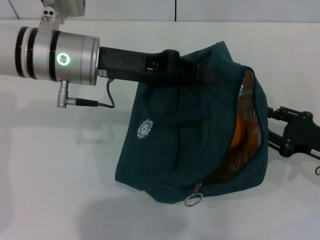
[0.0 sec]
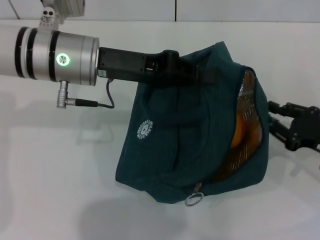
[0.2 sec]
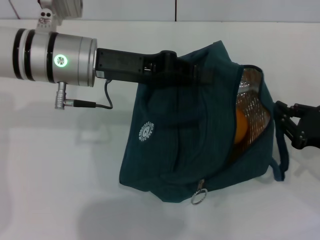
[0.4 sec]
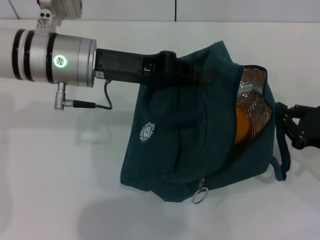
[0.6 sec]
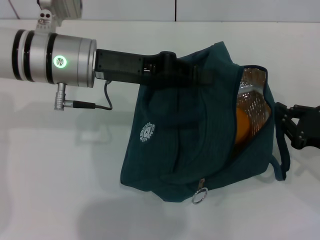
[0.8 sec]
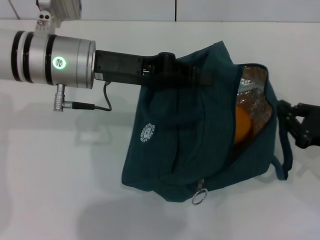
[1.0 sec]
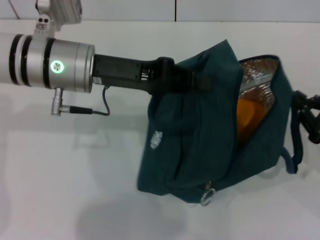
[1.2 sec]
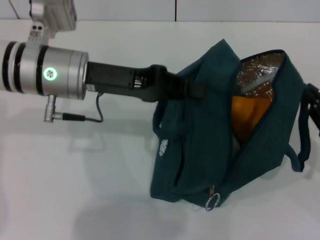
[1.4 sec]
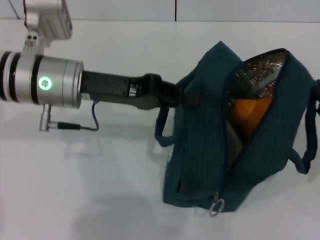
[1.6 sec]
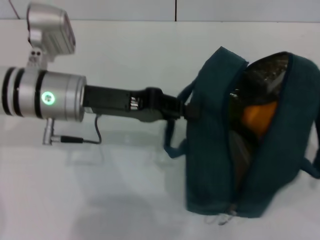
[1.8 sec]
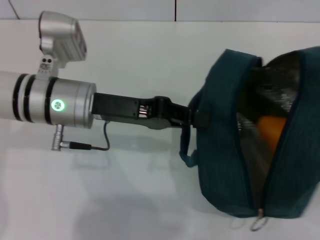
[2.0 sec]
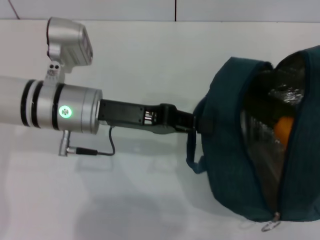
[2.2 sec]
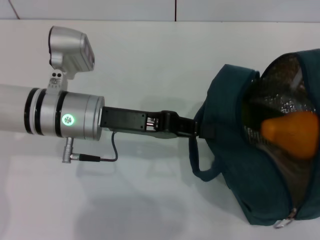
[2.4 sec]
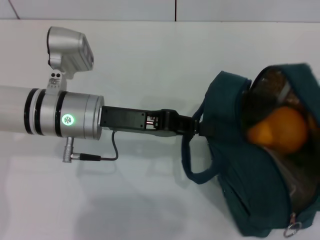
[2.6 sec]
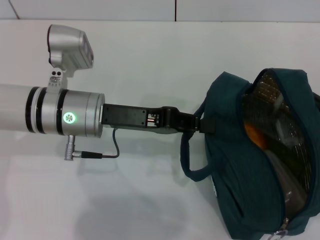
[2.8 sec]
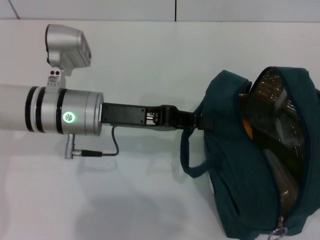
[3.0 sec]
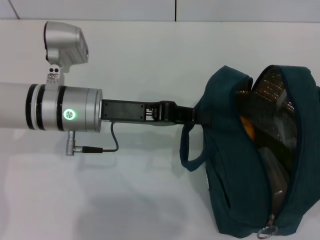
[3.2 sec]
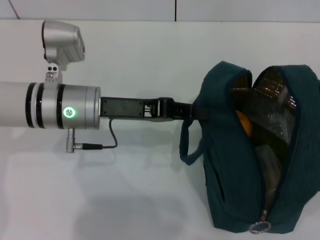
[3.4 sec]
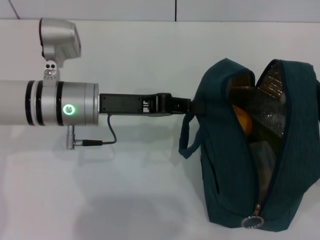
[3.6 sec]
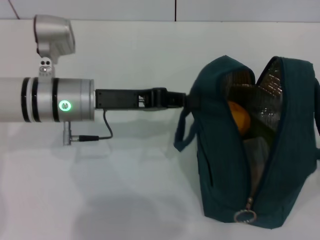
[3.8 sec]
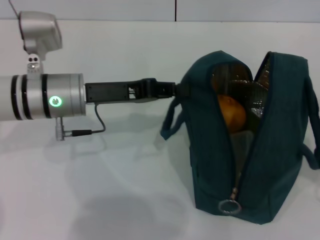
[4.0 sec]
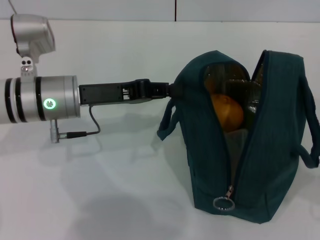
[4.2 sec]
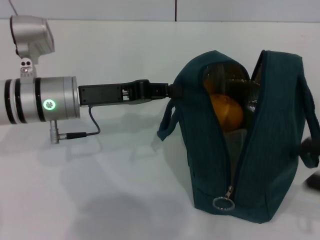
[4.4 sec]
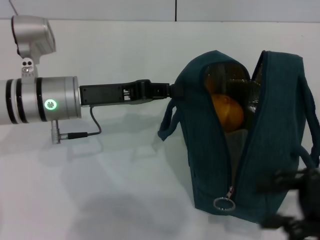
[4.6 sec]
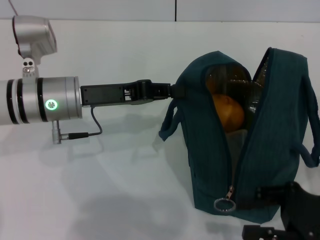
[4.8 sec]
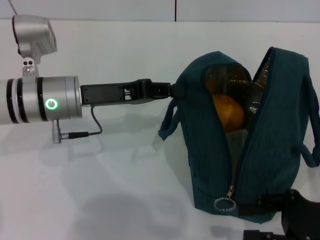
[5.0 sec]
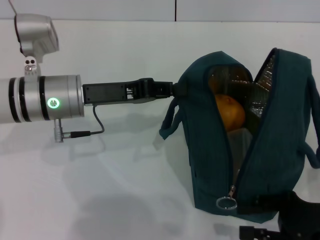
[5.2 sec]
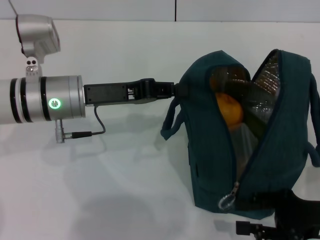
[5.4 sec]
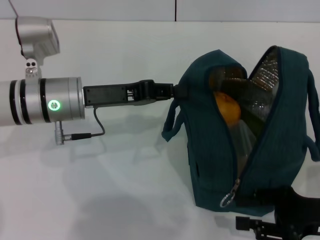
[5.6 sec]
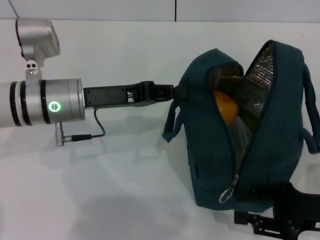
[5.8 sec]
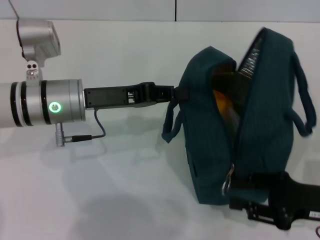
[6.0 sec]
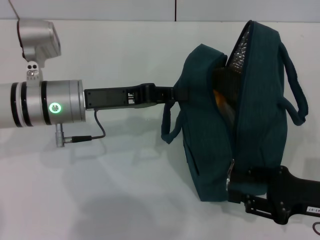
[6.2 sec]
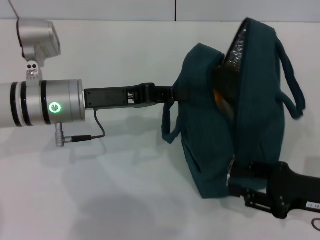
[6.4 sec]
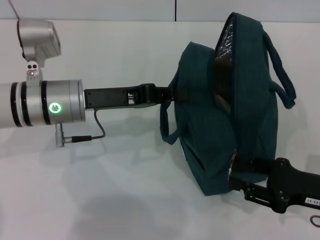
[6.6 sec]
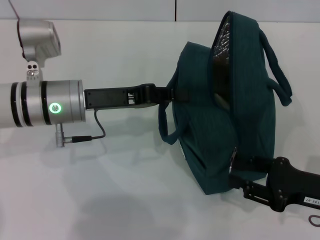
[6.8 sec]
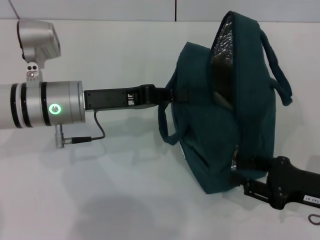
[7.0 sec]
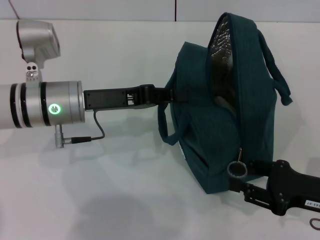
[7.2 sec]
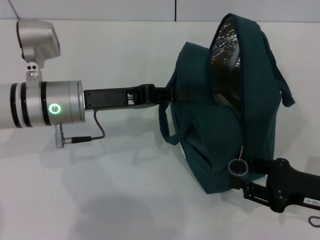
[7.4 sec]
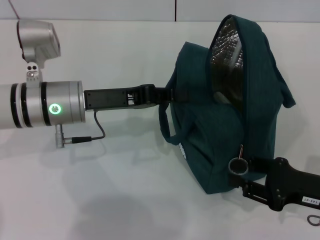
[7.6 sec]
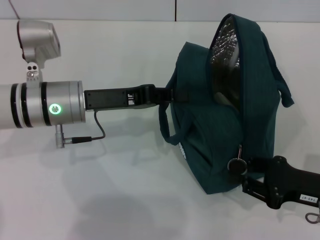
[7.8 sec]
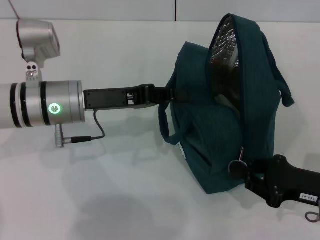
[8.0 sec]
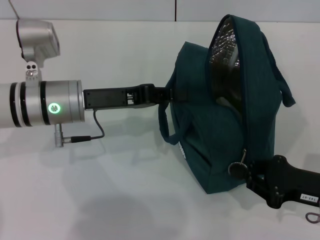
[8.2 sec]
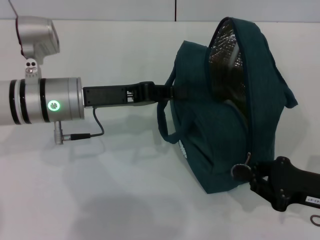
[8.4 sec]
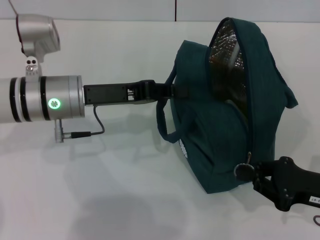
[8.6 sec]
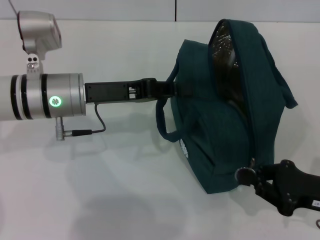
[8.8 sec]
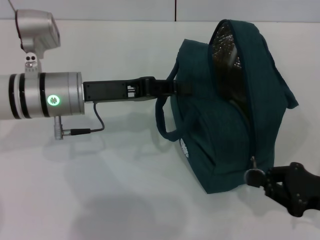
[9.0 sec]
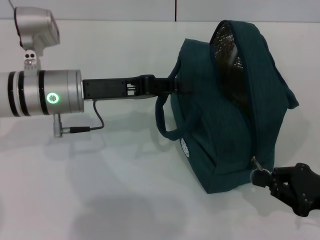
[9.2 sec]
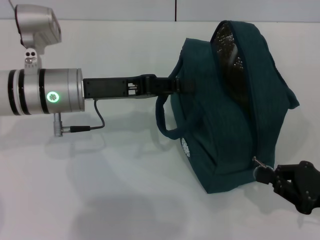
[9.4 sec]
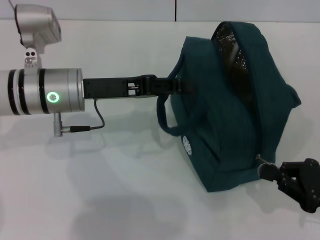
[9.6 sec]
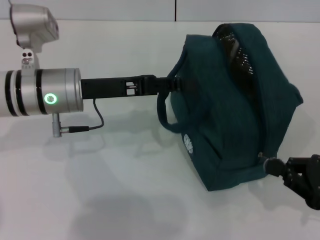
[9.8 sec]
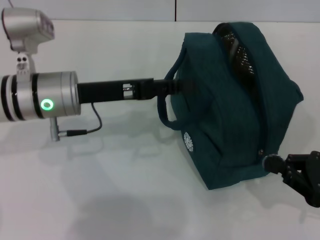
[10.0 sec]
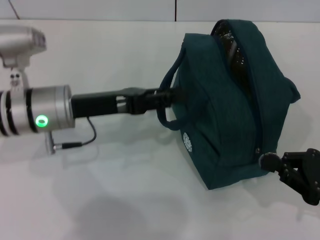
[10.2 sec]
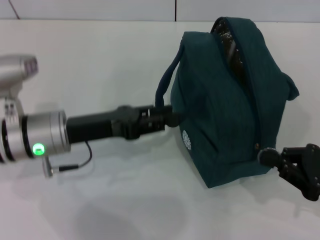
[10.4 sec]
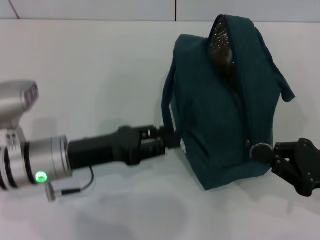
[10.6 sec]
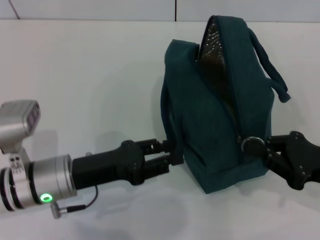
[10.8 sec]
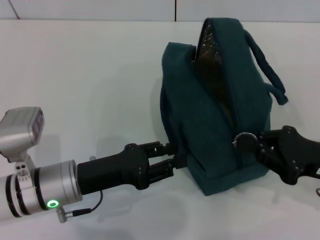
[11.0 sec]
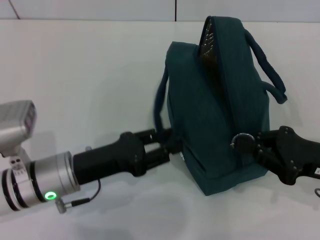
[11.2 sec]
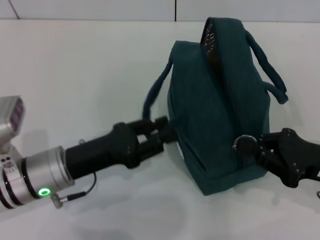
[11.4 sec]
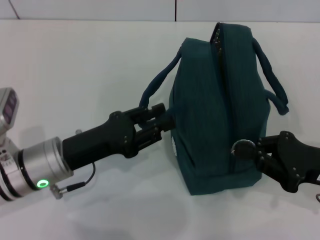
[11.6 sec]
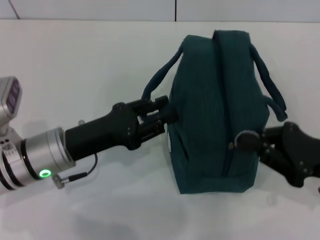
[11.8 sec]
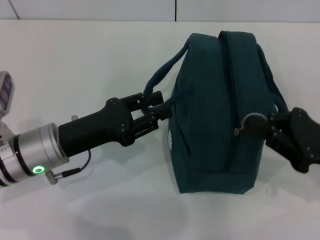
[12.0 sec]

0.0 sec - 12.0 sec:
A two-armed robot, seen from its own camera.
Step, 0.0 sec - 3.8 sec: Hold the lunch bag with your right hand.
0.0 sec - 1.6 sec: The right gripper shifts by about 5 cm, and closes up.
3.0 sec - 4.4 sec: The right gripper changes place by approximately 5 cm, and opens up.
4.4 sec - 6.0 sec: The right gripper shifts roughly 5 cm downward.
6.0 sec - 7.6 sec: The grippers stay close to where they were, moving slightly.
7.6 sec - 9.0 sec: The right gripper closes up.
9.0 sec - 10.4 sec: The left gripper moves some 5 cm, and opens.
10.4 sec - 12.0 sec: The right gripper moves about 5 cm.

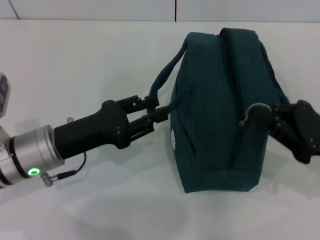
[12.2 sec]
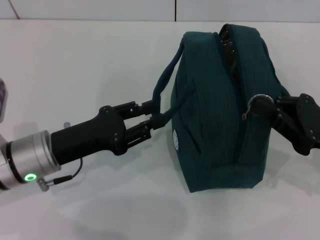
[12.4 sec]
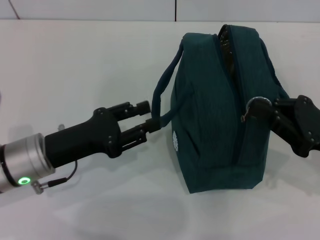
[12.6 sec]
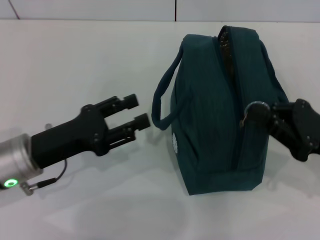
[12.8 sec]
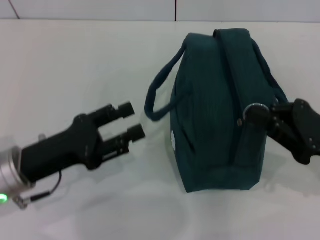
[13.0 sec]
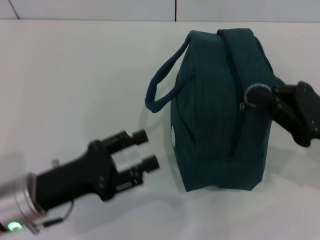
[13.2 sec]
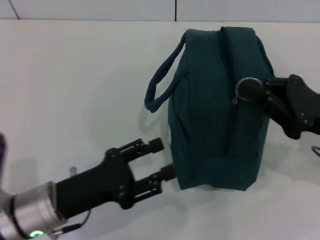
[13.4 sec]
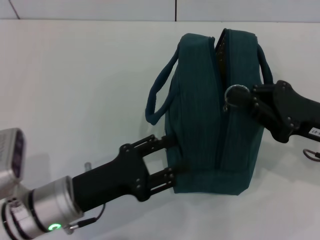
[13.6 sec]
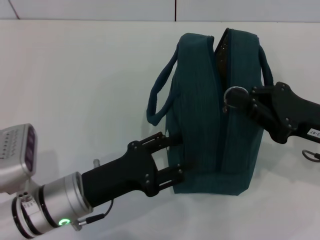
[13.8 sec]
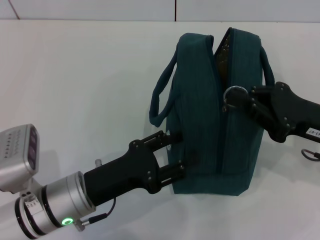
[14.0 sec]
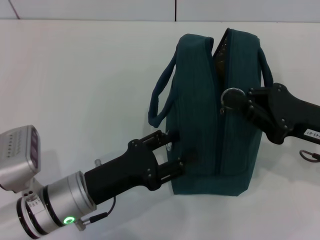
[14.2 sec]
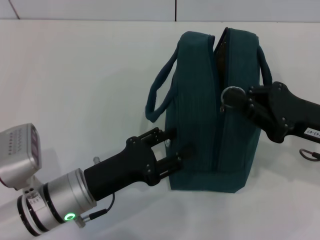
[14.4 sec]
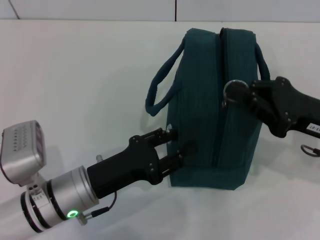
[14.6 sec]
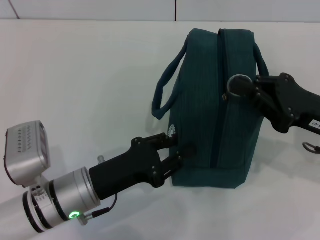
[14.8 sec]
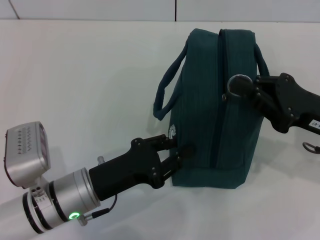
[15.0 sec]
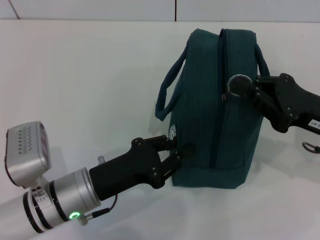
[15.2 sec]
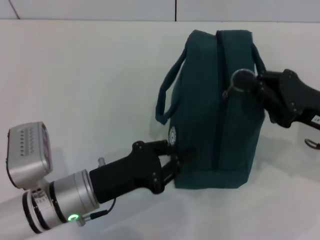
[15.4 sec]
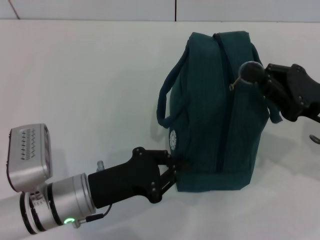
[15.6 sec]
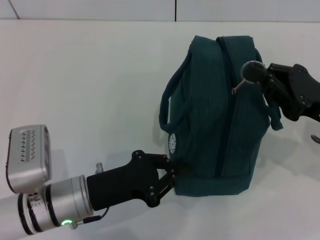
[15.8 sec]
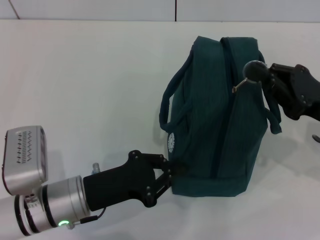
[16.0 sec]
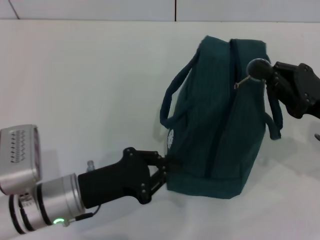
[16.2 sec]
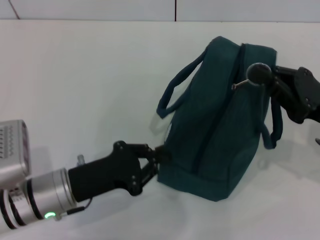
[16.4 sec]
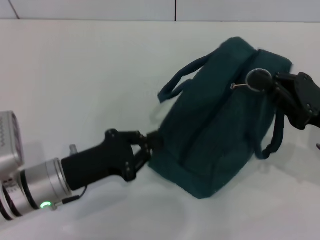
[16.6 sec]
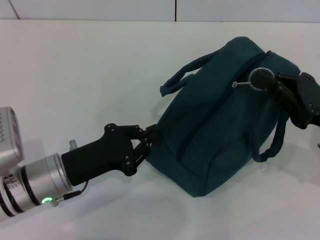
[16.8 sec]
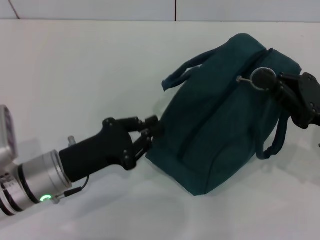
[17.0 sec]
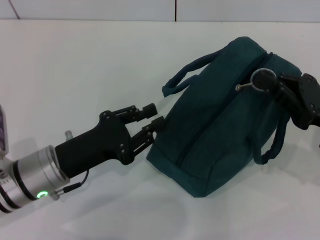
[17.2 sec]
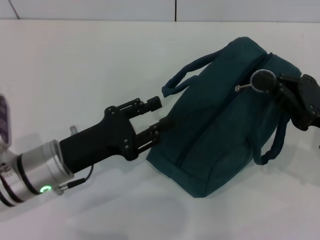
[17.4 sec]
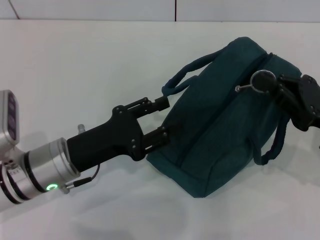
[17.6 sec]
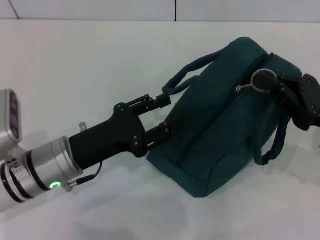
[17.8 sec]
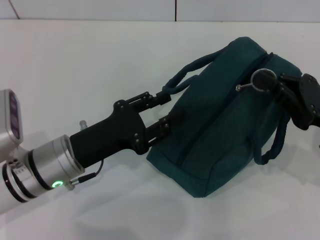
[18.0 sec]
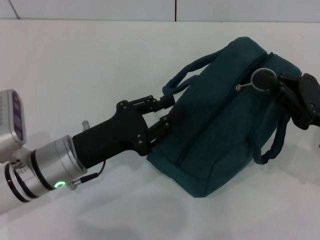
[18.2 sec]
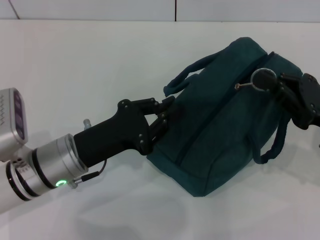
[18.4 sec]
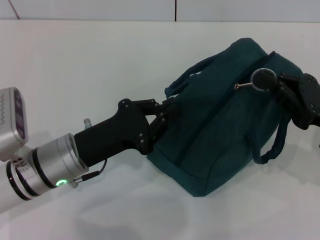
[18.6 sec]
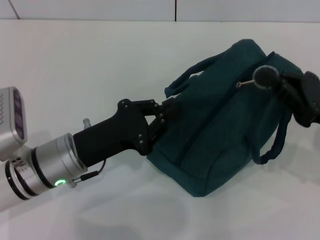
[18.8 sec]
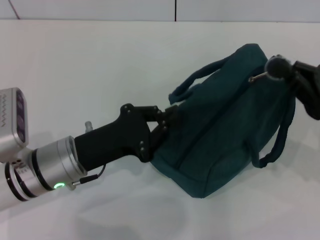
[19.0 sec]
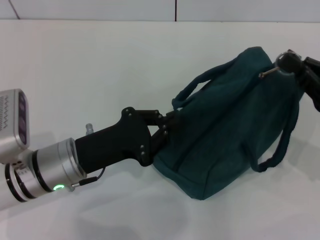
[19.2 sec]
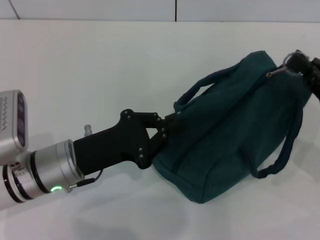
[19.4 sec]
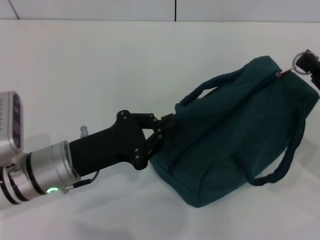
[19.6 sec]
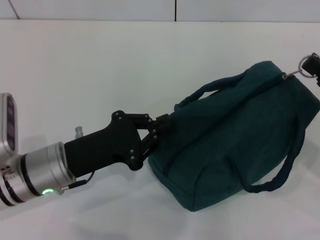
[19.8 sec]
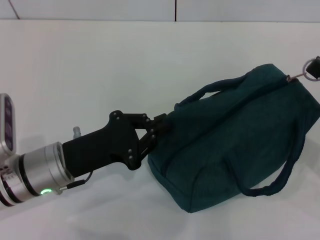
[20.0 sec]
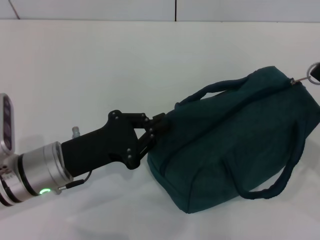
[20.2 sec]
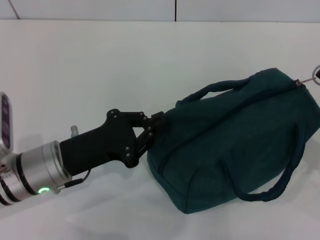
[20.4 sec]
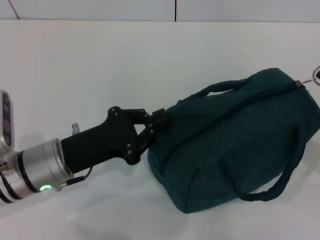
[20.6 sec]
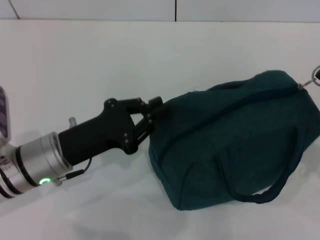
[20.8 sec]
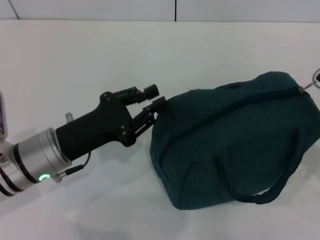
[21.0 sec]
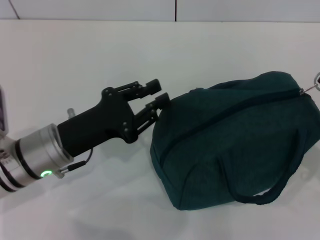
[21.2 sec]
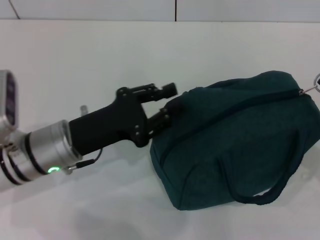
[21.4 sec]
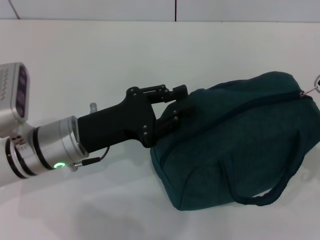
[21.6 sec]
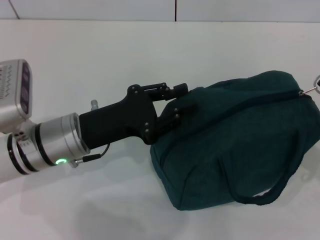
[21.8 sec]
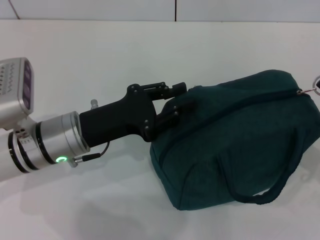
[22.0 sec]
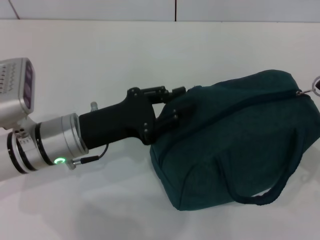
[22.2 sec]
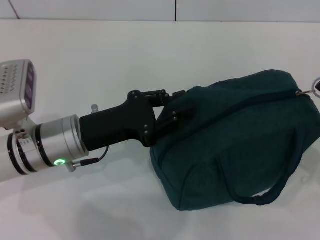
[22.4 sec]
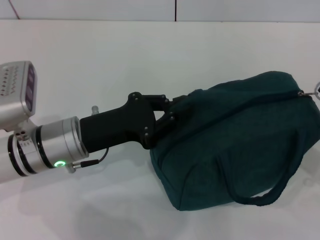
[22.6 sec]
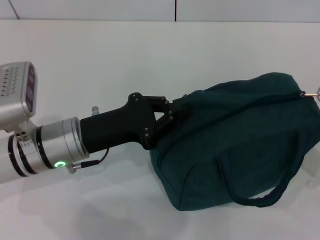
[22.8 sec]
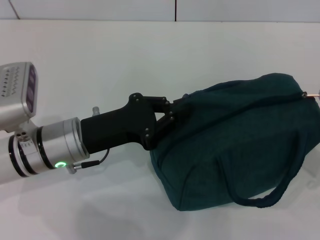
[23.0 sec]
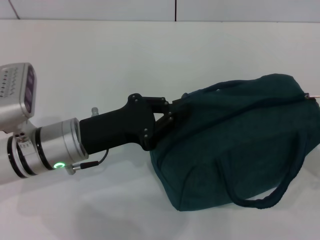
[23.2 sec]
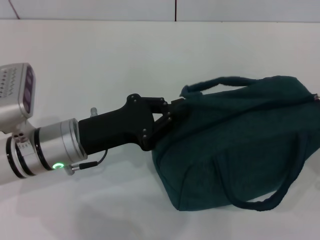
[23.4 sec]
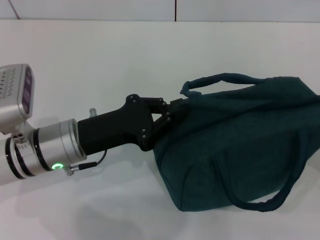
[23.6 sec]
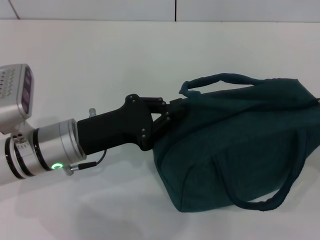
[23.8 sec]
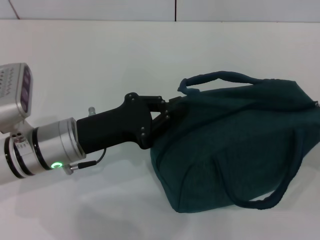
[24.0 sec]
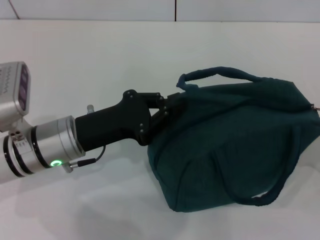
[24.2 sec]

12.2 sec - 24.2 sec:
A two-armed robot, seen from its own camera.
12.2 sec - 13.8 sec: The left gripper travels backward by about 5 cm.
13.8 sec - 15.2 sec: The left gripper closes.
16.6 sec - 18.2 sec: The left gripper opens its fingers.
18.2 sec - 19.8 sec: The left gripper closes.
19.8 sec - 21.2 sec: The left gripper opens.
21.2 sec - 24.2 sec: The grippers stay close to where they were, moving slightly.
